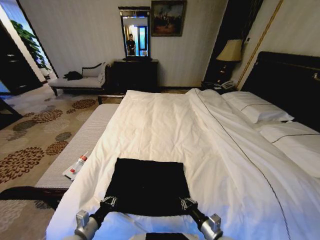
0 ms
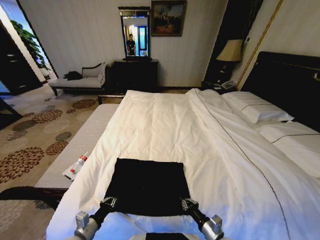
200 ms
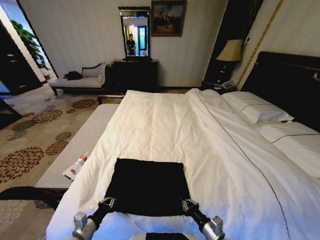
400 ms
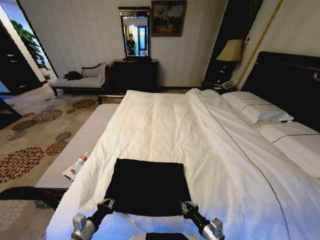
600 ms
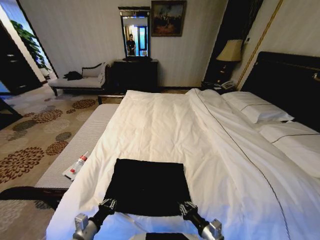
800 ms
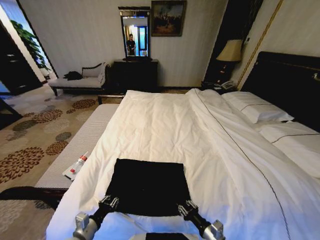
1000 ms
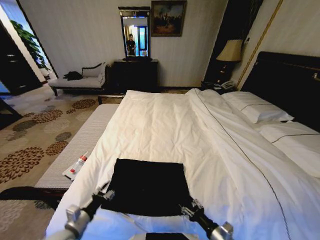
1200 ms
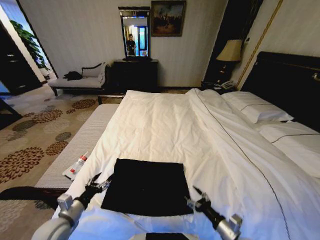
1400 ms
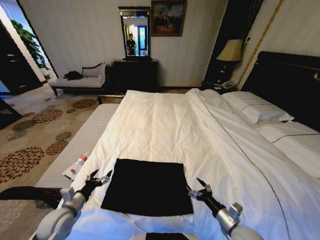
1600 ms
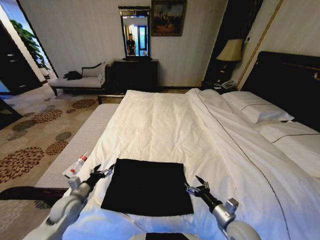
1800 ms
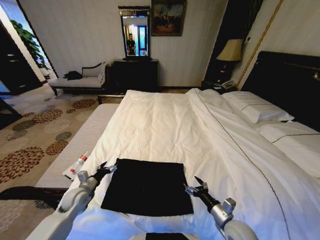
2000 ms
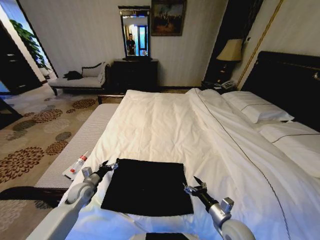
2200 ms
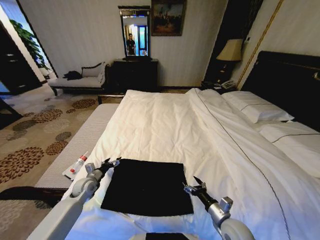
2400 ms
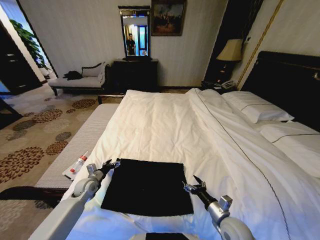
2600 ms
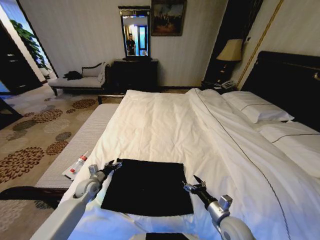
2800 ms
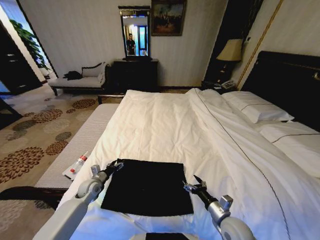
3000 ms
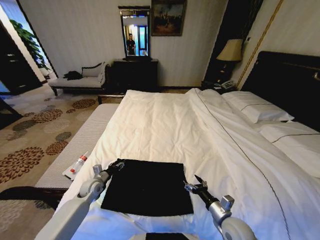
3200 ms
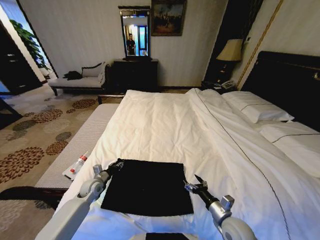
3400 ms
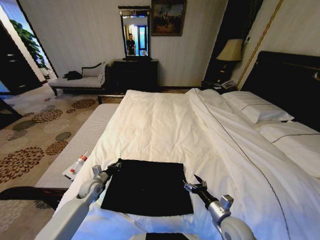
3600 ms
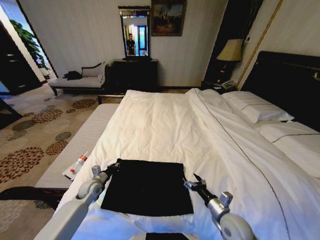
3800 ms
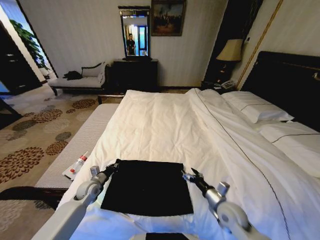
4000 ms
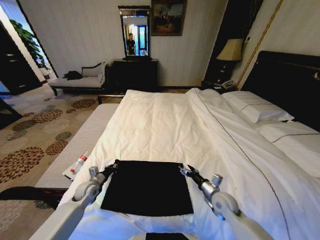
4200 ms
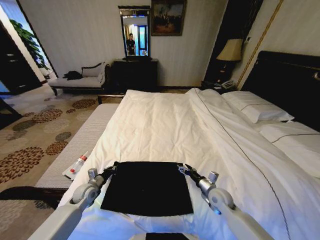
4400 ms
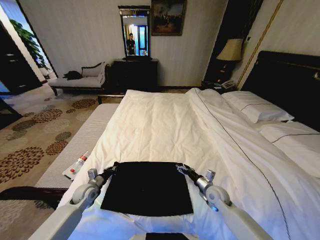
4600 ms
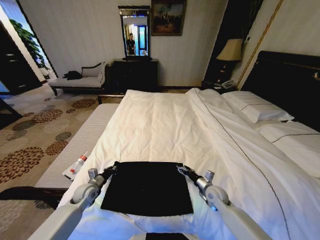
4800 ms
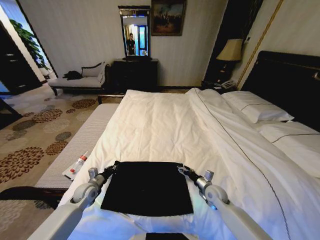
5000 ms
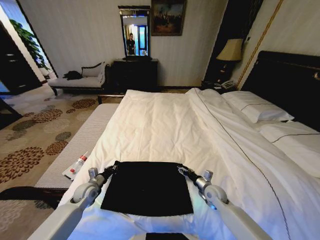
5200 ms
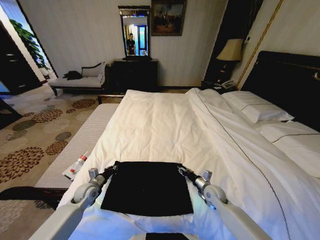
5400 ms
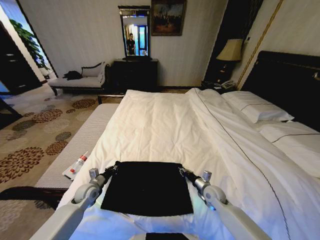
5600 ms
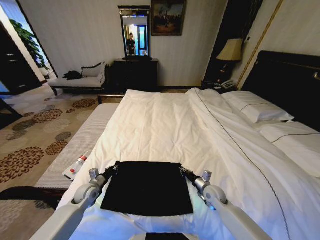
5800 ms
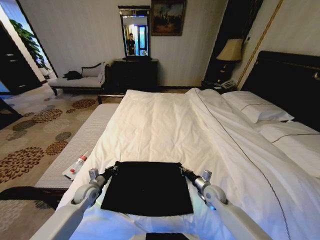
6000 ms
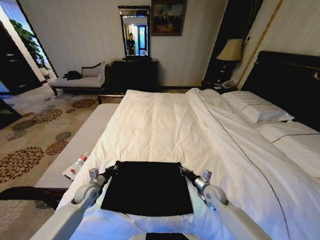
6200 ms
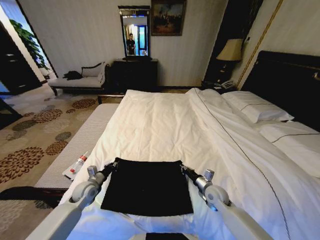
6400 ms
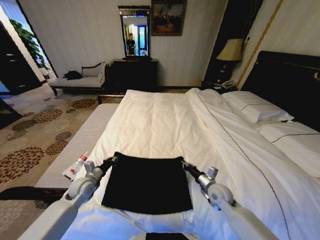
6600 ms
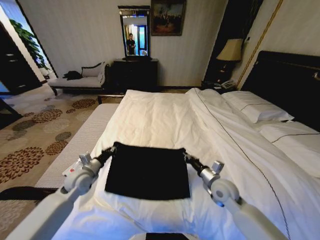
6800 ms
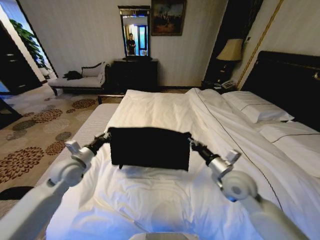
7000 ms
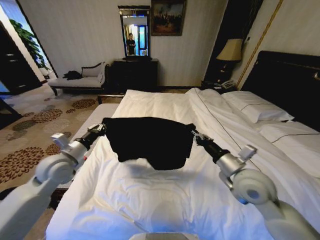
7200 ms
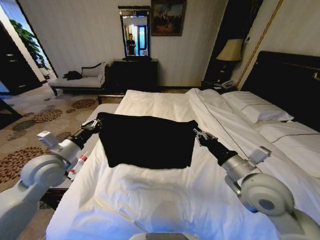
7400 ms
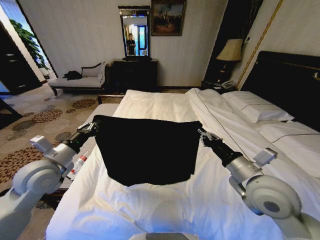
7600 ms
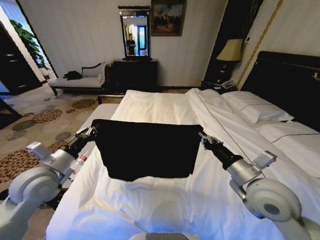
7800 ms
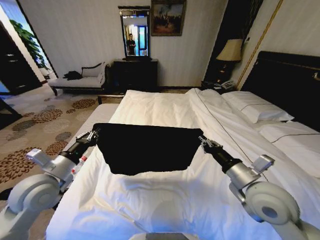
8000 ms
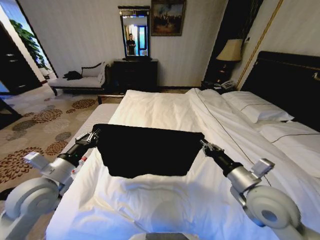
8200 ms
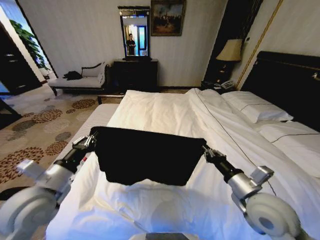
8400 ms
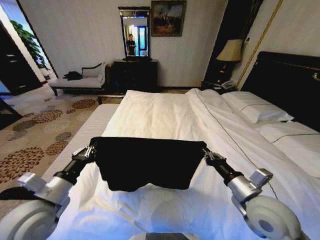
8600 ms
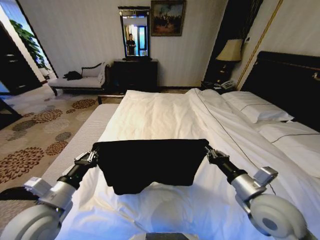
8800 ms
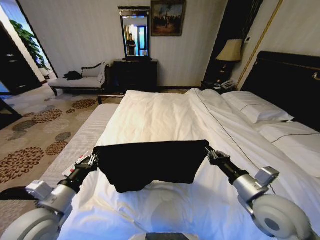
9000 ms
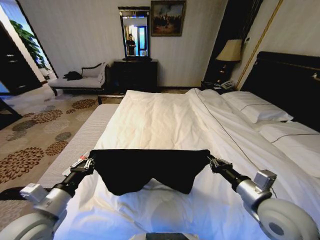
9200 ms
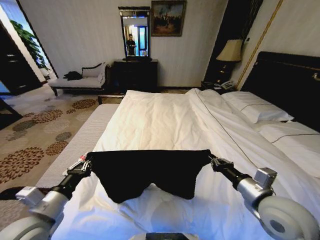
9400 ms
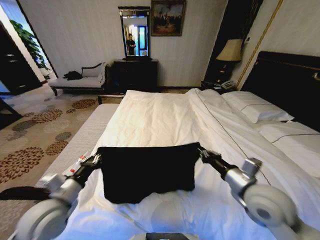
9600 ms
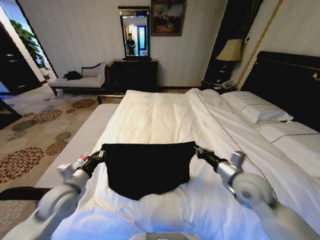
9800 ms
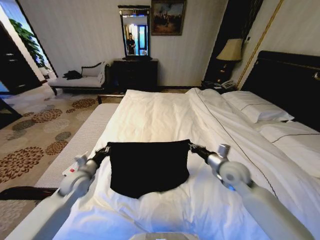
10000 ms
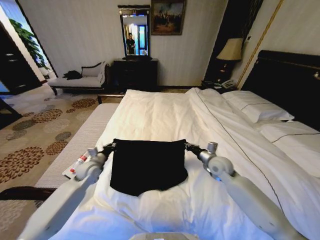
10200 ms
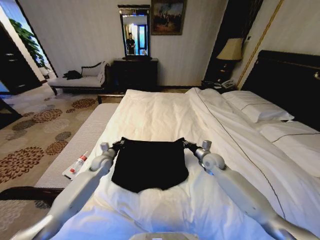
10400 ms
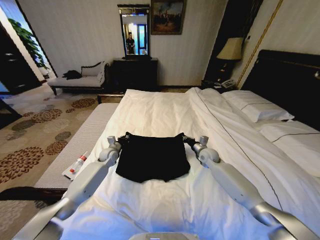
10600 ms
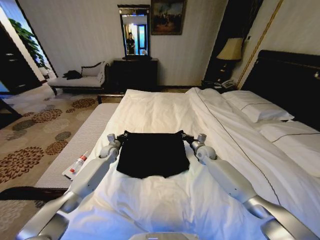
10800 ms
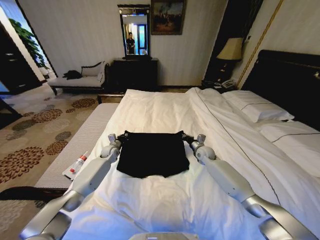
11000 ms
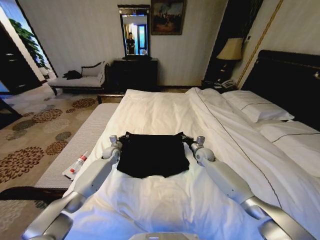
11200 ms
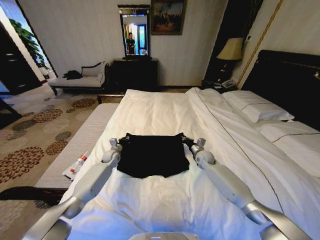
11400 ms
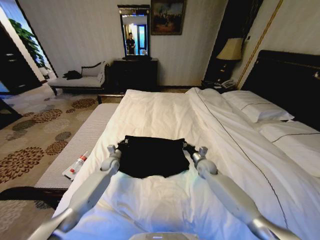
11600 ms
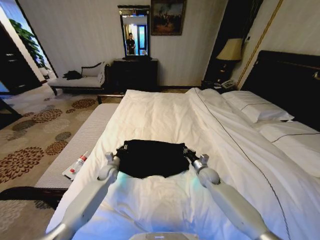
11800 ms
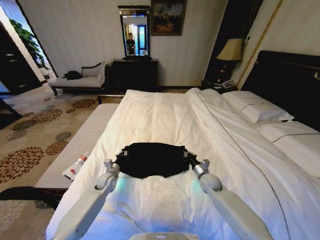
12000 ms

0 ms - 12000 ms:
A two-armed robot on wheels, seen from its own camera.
Task of the whole recording: Fold the clothes on the bed.
0 ms - 1600 ms: The left gripper is displaced forward and to the left by some 10 cm, and opens. Meanwhile the right gripper is displaced to the right by about 5 cm, and opens.
1600 ms - 3000 ms: The left gripper shifts about 15 cm forward and downward.
3000 ms - 4400 ms: The left gripper closes; the right gripper moves forward, some 10 cm.
4400 ms - 6000 ms: The right gripper closes its fingers.
6000 ms - 7600 ms: The two grippers go some 25 cm upward.
7600 ms - 9000 ms: The right gripper moves approximately 5 cm. The left gripper heads backward and downward, covering approximately 15 cm.
9000 ms - 10400 ms: Both grippers move forward and downward, roughly 30 cm.
10400 ms - 12000 ms: Both grippers move downward and backward, some 10 cm.

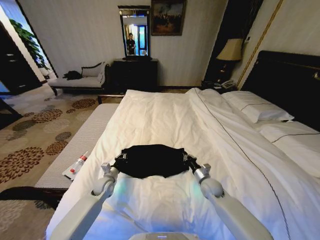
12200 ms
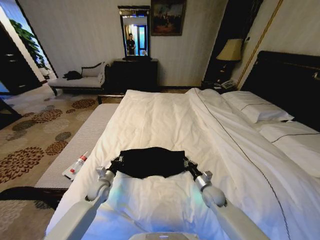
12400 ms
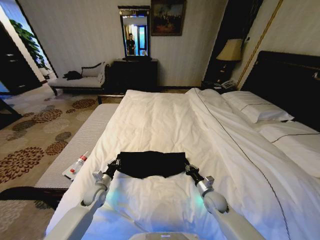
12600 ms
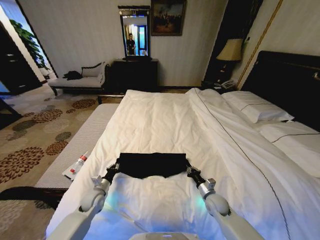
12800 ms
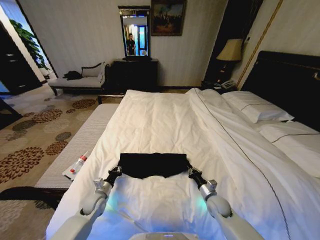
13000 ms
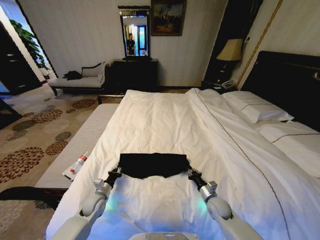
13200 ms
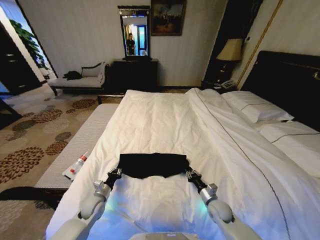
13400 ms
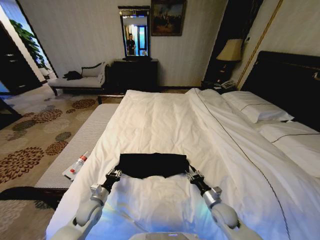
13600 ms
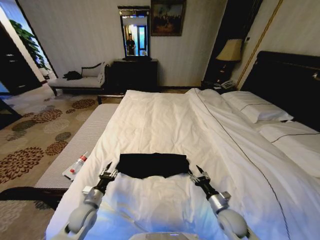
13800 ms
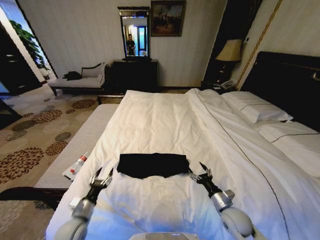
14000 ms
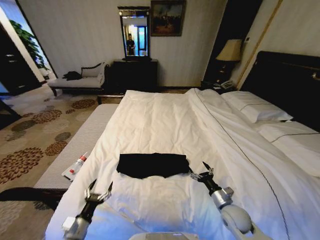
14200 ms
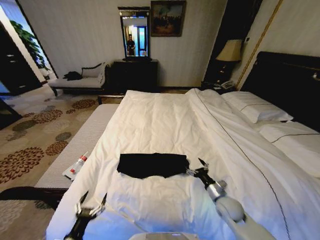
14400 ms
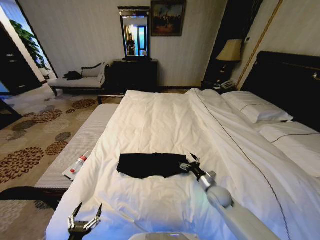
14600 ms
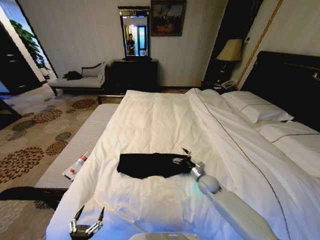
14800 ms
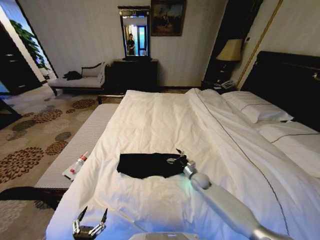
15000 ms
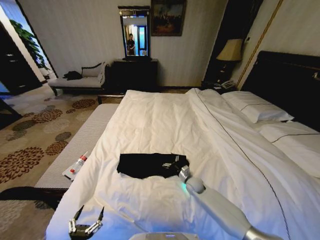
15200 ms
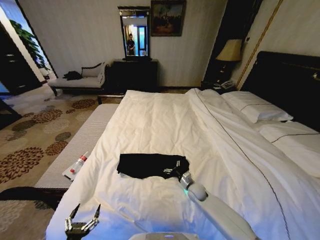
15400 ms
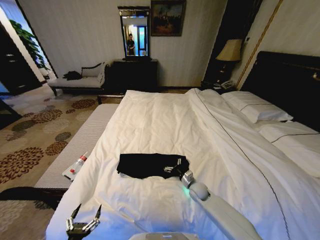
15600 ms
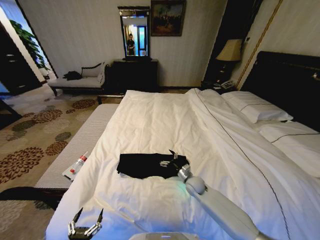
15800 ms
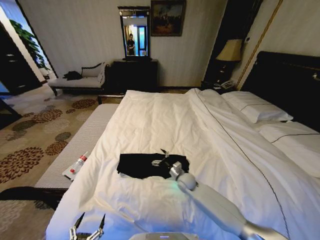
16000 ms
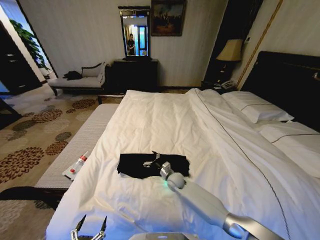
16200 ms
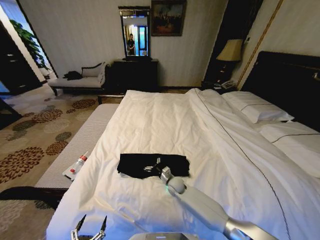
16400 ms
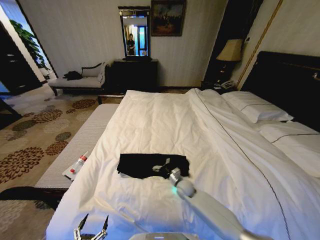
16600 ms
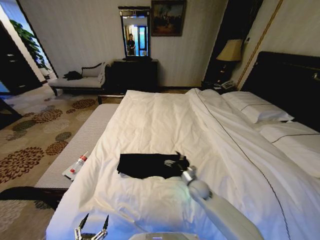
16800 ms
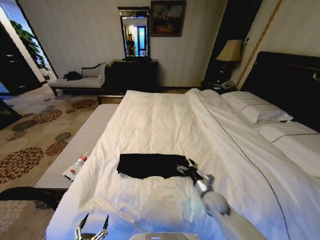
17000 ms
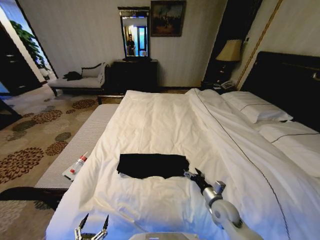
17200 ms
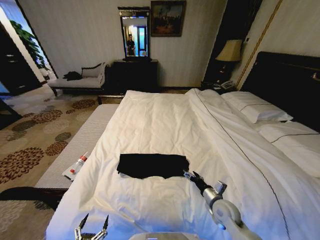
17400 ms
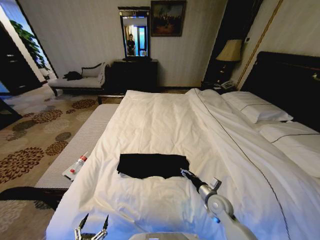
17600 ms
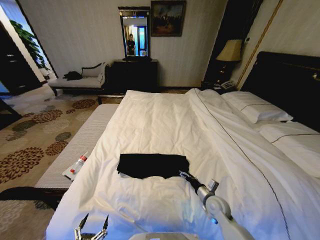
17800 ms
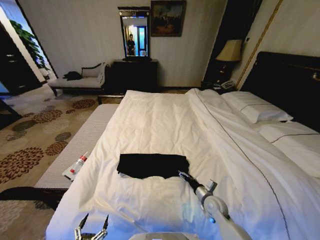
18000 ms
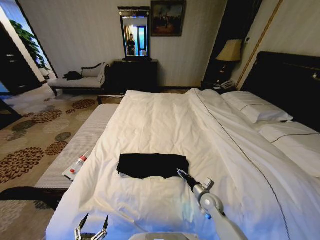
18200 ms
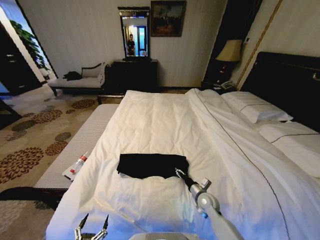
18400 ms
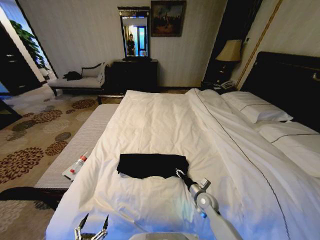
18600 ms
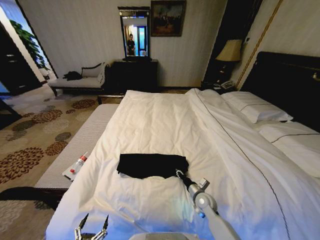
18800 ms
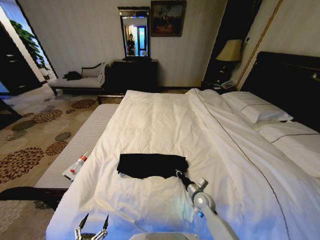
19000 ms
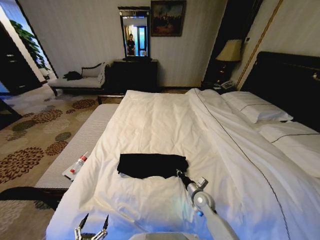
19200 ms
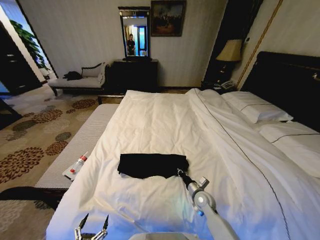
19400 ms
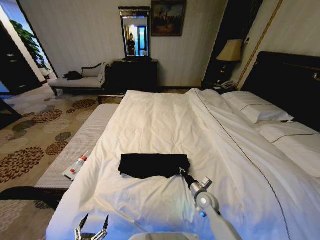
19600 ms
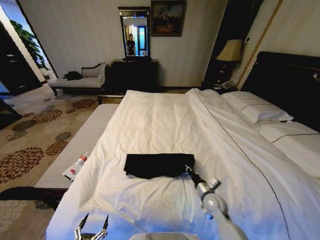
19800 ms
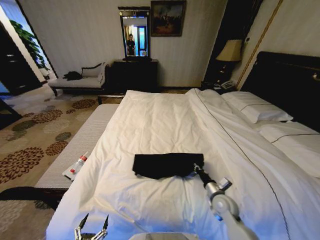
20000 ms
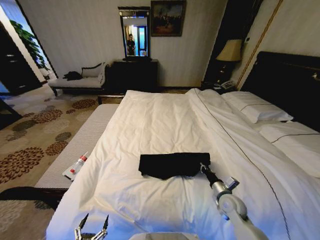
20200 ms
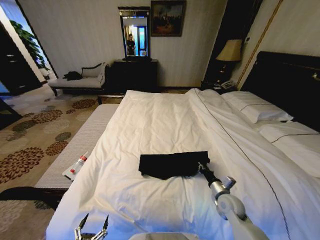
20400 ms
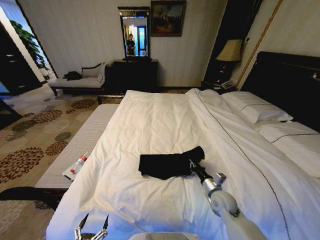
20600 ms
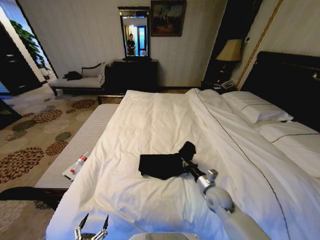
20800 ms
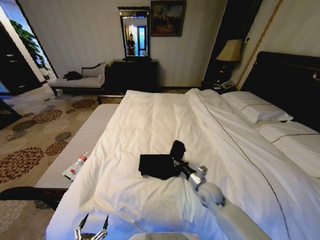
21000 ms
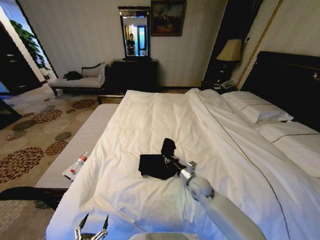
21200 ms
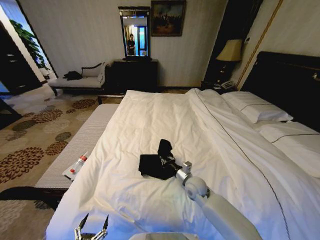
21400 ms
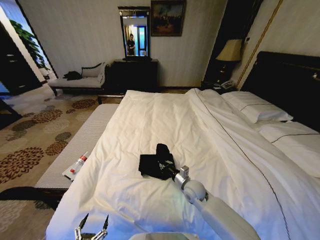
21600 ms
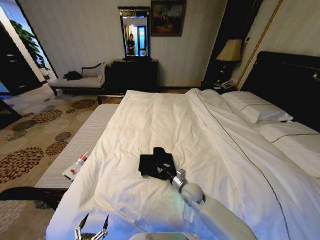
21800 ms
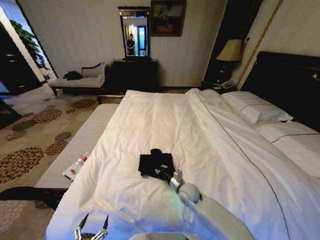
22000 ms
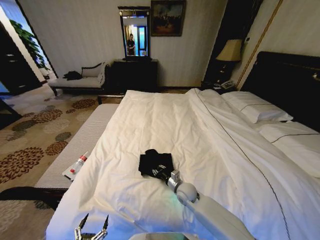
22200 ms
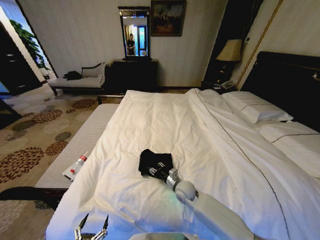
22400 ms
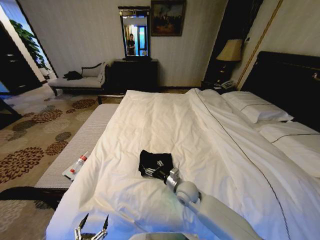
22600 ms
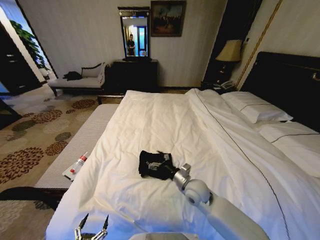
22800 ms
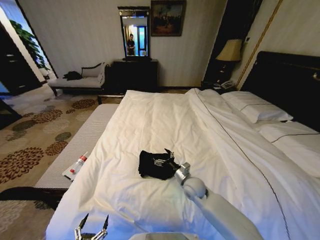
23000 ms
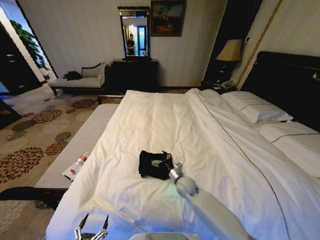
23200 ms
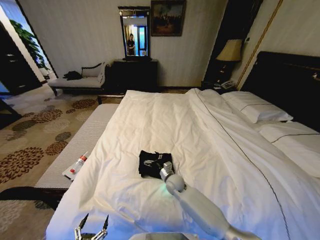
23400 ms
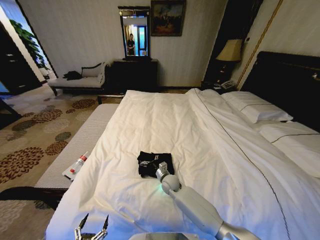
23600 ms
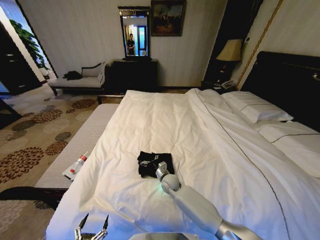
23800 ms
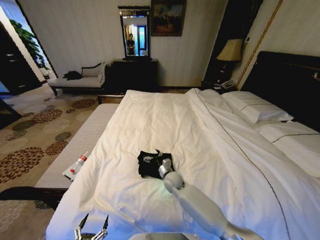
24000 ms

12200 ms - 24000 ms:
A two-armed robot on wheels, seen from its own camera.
Task of the whole recording: Fold the clothes on the bed.
12200 ms - 13600 ms: The grippers both shift backward by about 10 cm. The right gripper opens.
13600 ms - 15200 ms: The right gripper is displaced forward and to the left by about 15 cm, and opens its fingers; the left gripper heads backward, covering approximately 25 cm, and opens up.
15200 ms - 16600 ms: The right gripper travels to the left by about 5 cm.
16600 ms - 18200 ms: The right gripper heads to the right and backward, covering about 15 cm.
18200 ms - 19600 ms: The right gripper closes up.
19600 ms - 21000 ms: The right gripper moves upward, roughly 5 cm, and reaches roughly 10 cm to the right, then returns.
21000 ms - 22600 ms: The right gripper shifts roughly 10 cm to the left, and opens up.
22600 ms - 24000 ms: The right gripper travels forward by approximately 5 cm, and reaches roughly 5 cm downward, then returns.
